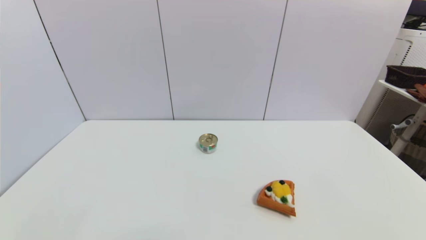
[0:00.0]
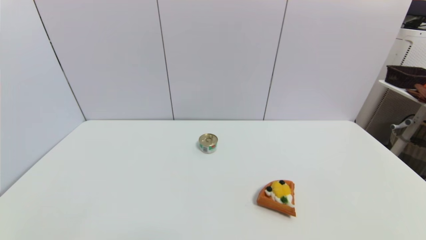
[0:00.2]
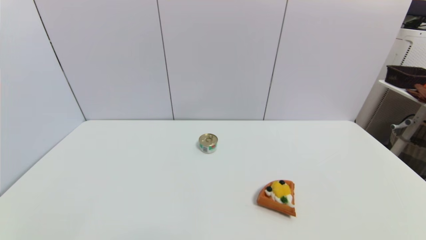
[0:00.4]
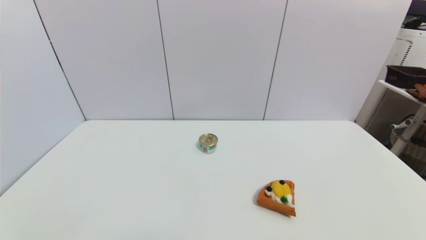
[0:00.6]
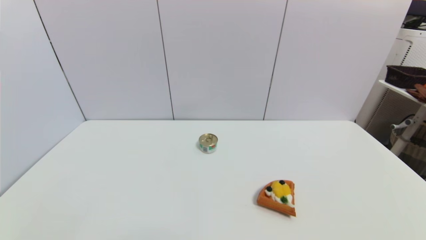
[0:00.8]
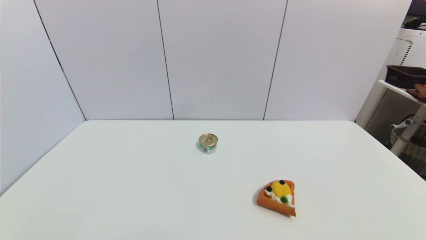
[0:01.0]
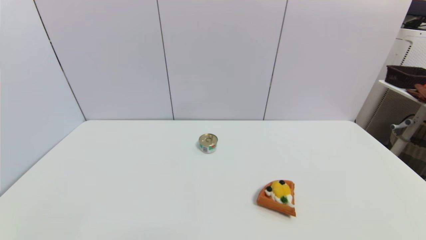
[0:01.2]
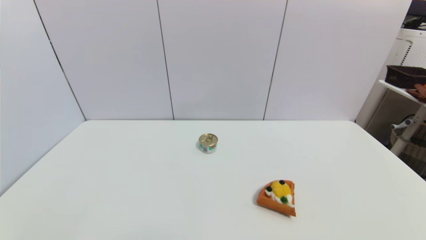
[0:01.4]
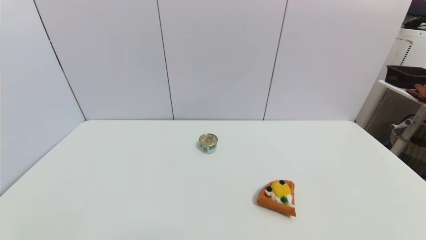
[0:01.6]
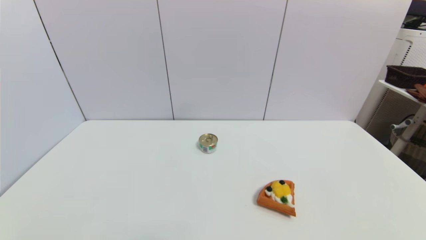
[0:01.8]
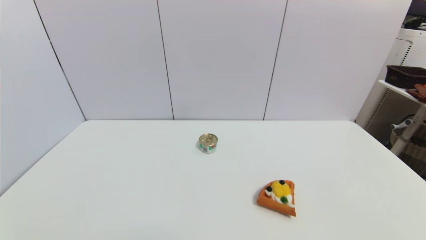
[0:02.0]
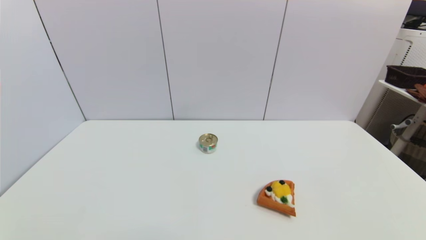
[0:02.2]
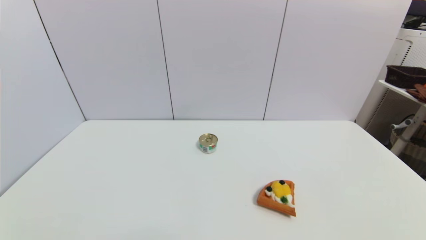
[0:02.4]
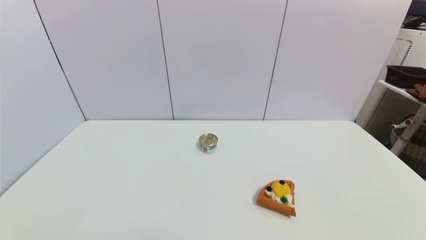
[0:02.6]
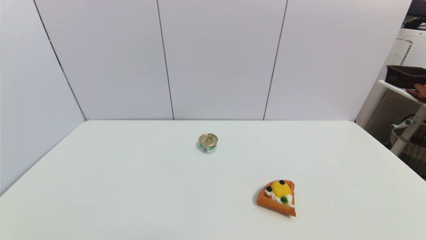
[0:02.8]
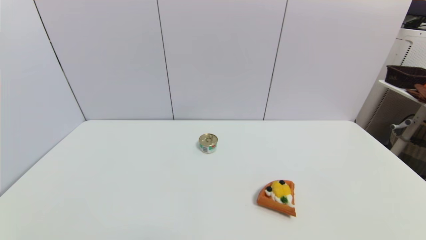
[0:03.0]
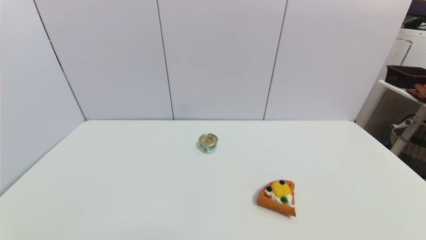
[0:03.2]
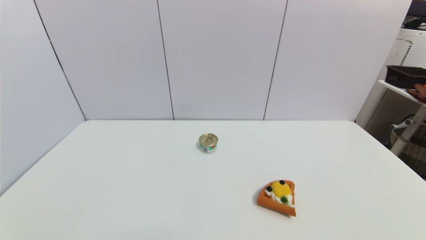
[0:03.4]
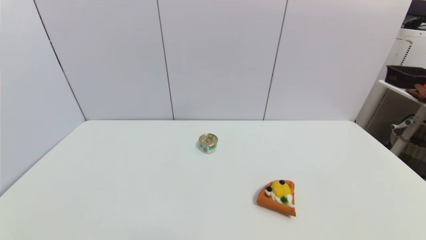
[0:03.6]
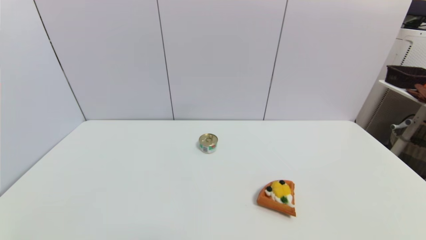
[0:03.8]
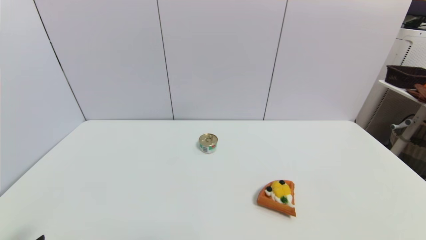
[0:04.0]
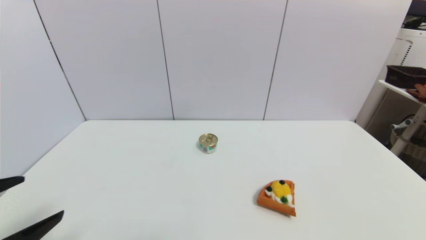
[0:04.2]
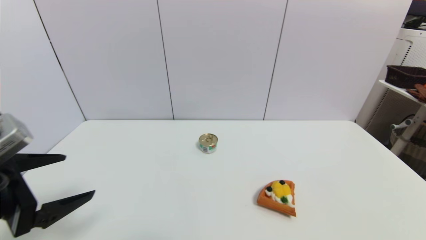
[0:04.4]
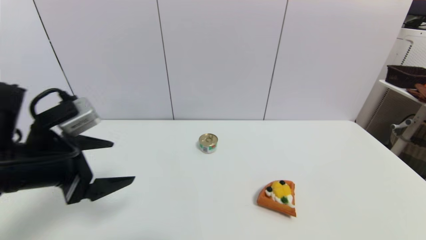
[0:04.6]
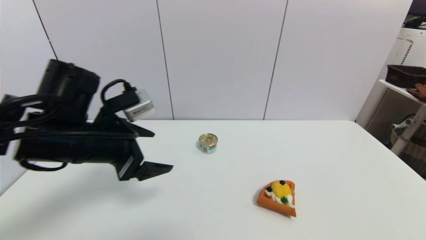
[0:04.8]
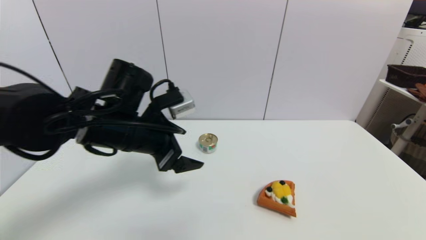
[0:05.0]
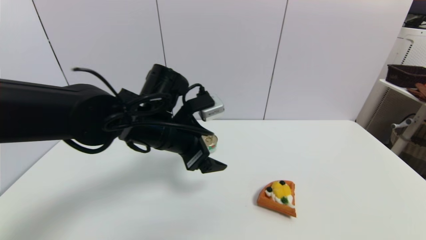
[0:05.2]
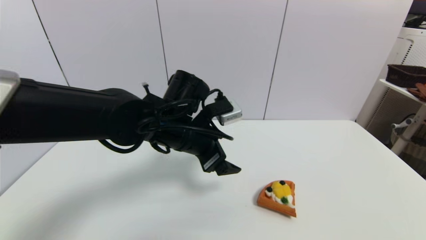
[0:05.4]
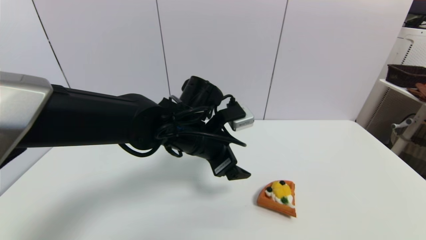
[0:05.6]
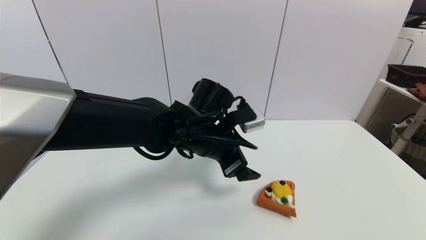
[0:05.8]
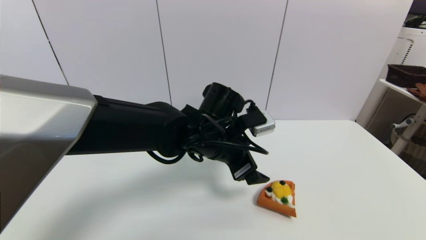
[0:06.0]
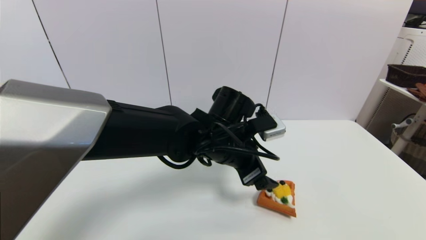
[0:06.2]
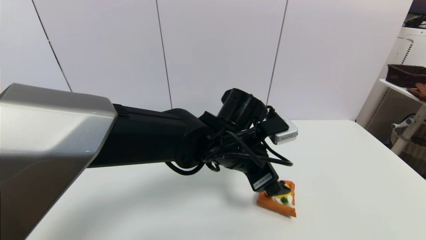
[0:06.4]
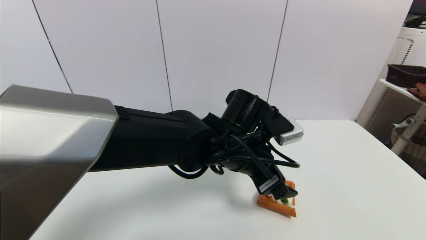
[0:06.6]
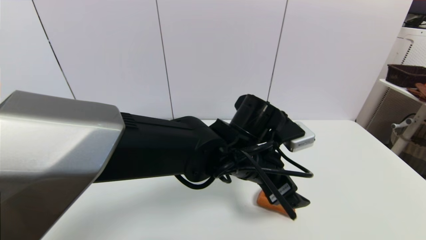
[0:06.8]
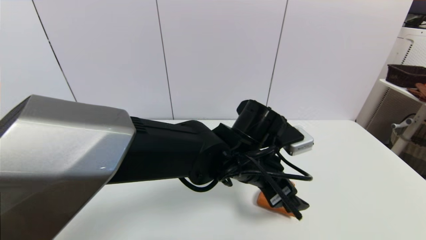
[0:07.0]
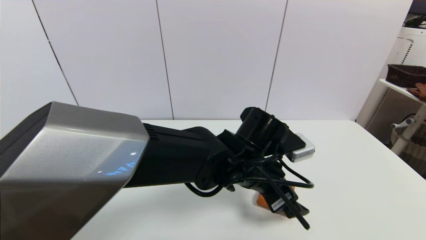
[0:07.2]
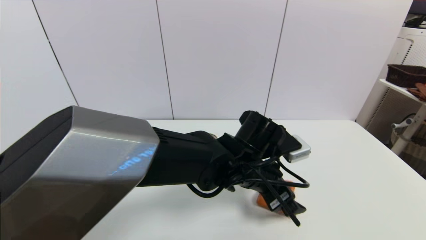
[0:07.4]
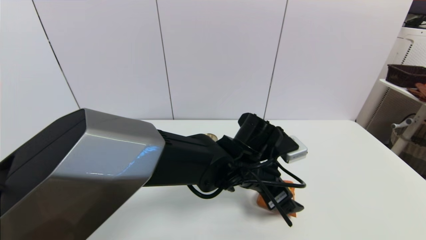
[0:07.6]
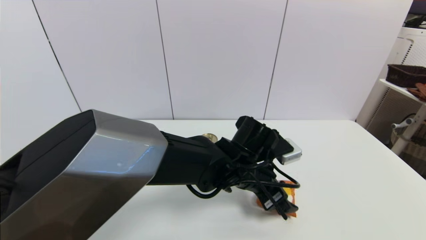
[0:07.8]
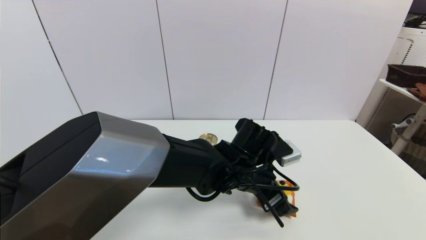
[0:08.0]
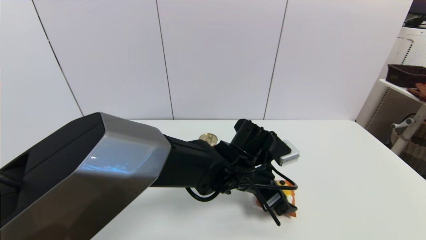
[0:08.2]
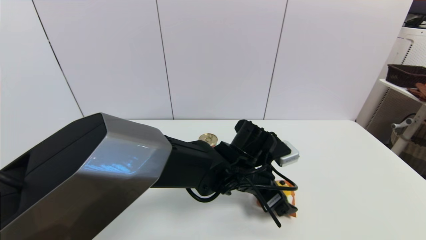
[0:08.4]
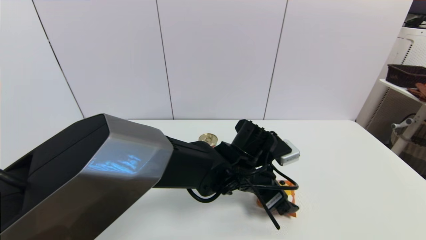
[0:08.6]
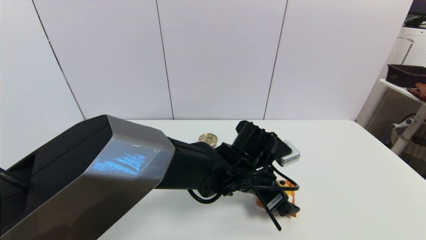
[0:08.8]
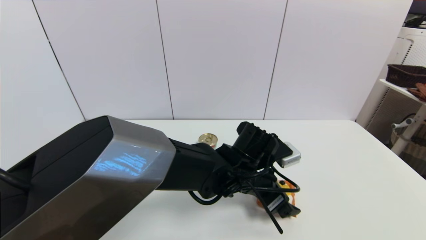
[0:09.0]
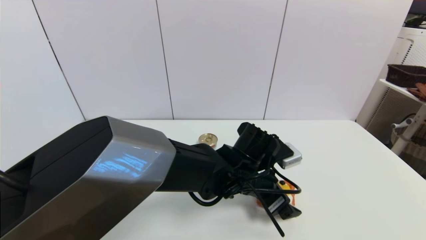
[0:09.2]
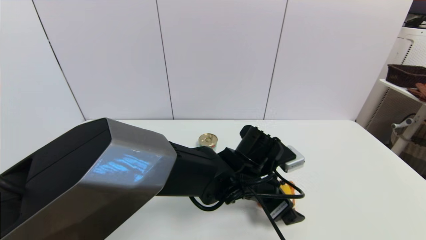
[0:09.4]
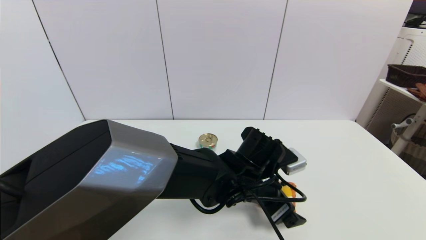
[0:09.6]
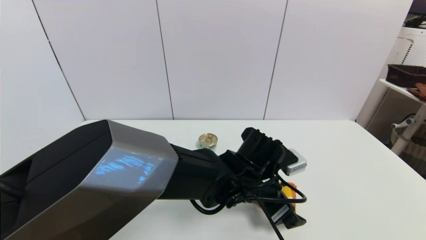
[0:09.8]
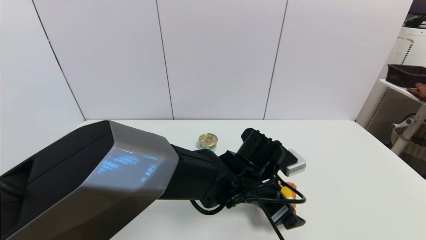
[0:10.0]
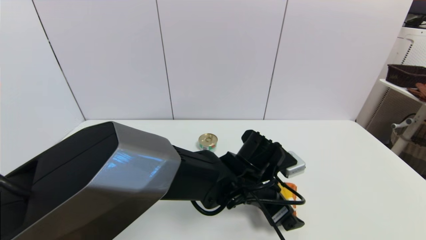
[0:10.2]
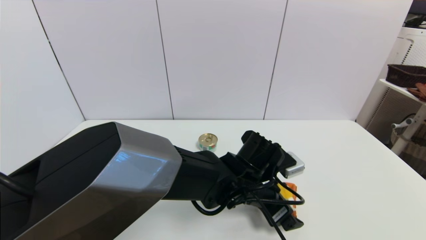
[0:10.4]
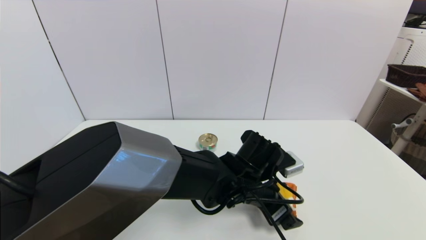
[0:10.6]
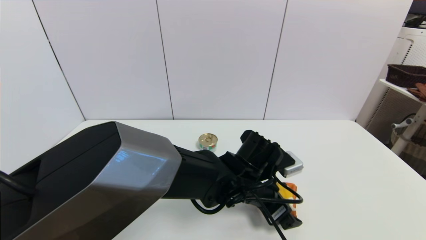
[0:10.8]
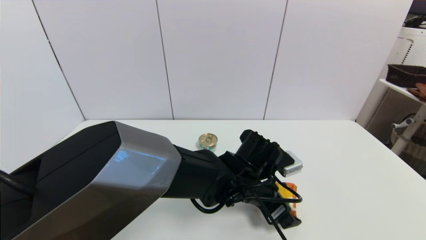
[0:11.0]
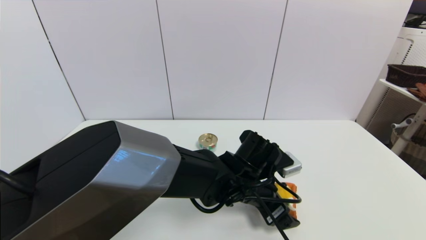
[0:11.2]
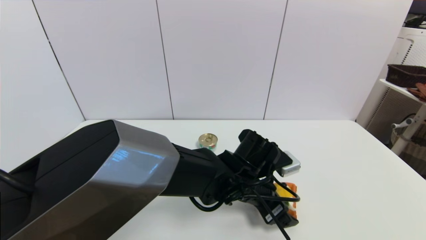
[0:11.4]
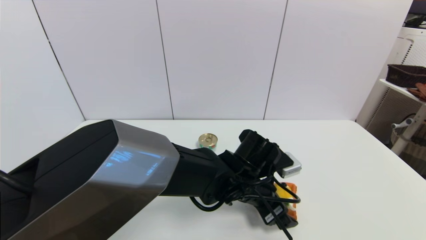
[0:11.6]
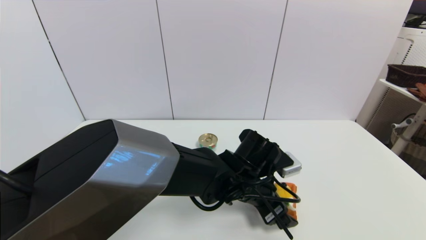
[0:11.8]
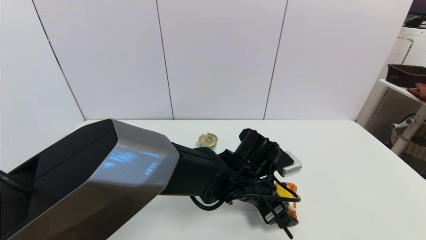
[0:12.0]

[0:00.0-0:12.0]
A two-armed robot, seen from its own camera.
0:00.0 to 0:03.0: Neither gripper changes place.
0:03.0 to 0:04.4: The left gripper travels upward and forward by some 20 cm.
0:04.4 to 0:06.0: The left gripper goes approximately 30 cm to the right and forward.
0:06.0 to 0:07.6: The left gripper goes about 5 cm to the right.
0:07.6 to 0:10.4: The grippers stay close to where they were, moving slightly.
0:10.4 to 0:12.0: Both grippers stay about where they are.

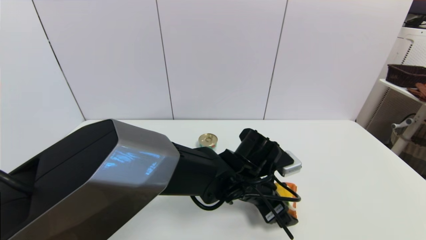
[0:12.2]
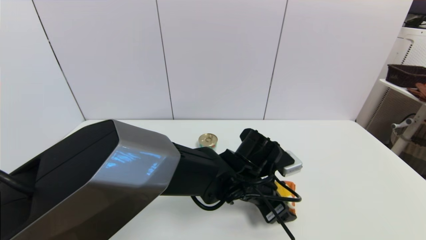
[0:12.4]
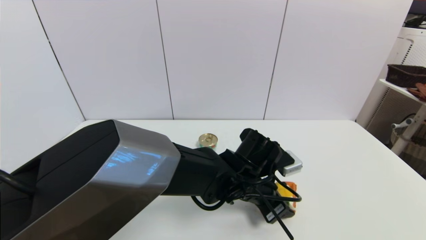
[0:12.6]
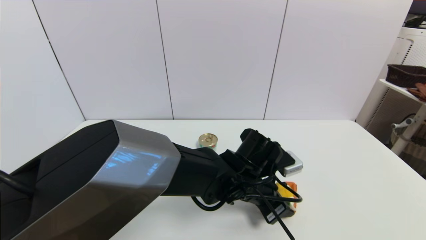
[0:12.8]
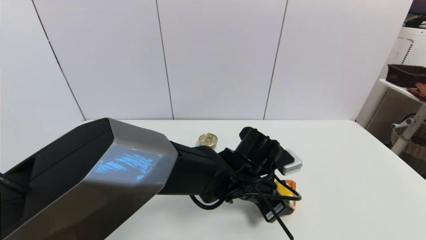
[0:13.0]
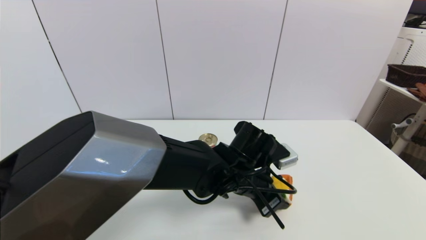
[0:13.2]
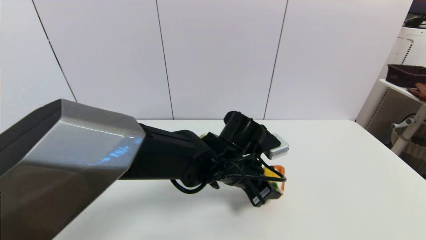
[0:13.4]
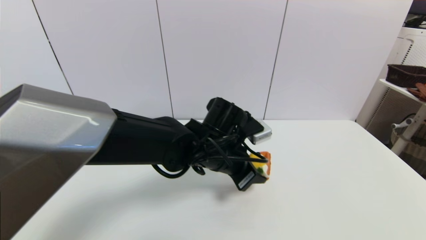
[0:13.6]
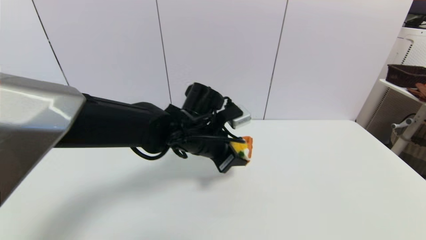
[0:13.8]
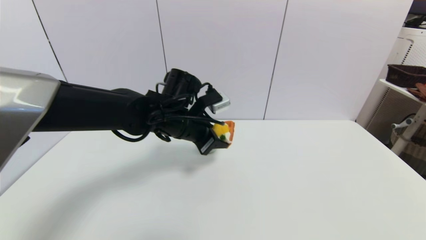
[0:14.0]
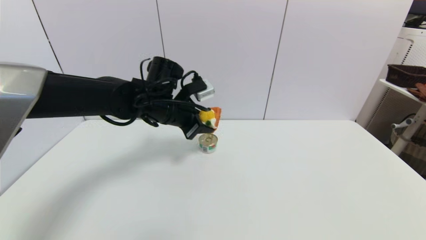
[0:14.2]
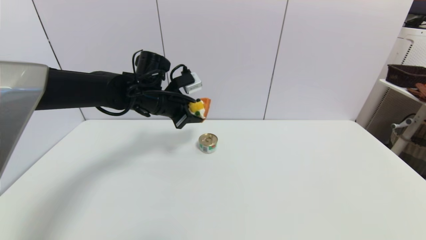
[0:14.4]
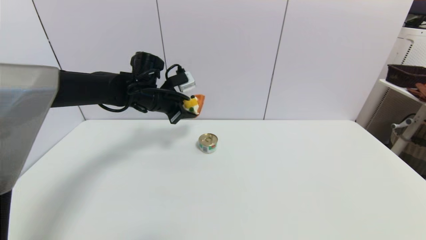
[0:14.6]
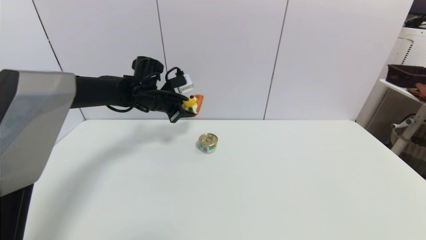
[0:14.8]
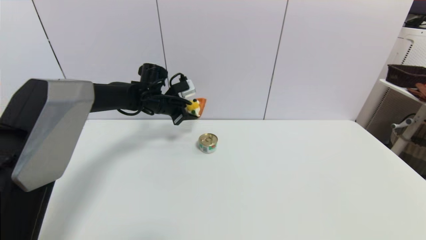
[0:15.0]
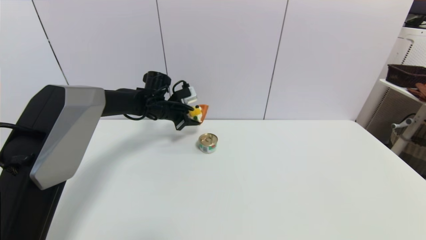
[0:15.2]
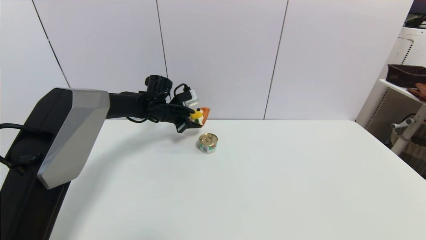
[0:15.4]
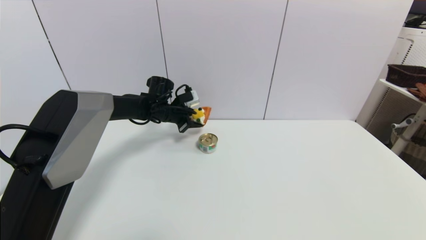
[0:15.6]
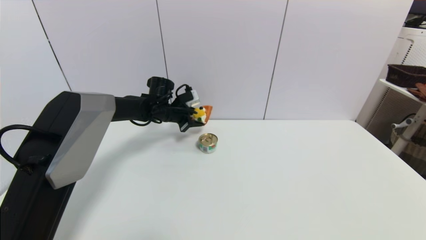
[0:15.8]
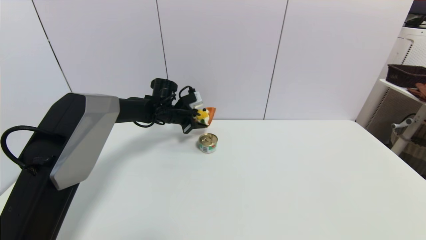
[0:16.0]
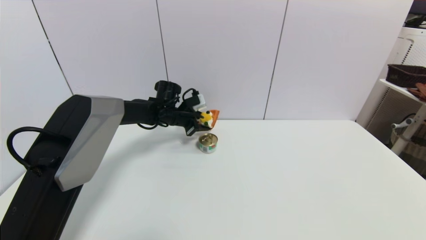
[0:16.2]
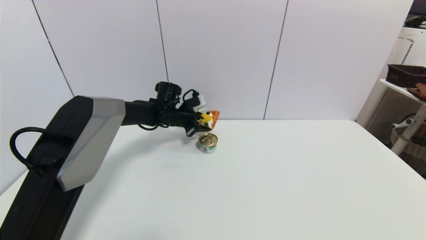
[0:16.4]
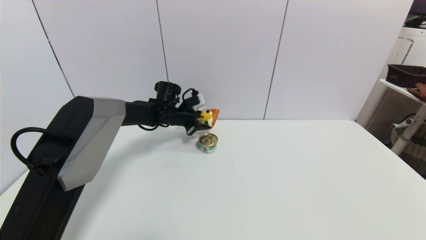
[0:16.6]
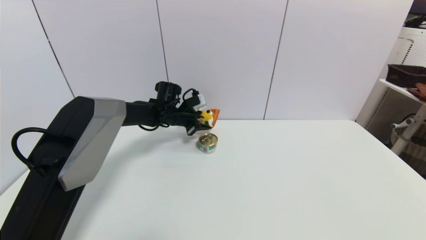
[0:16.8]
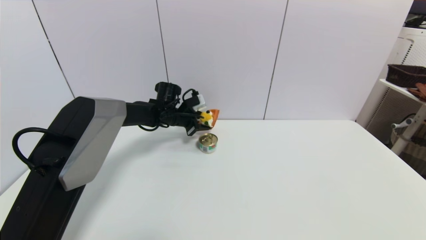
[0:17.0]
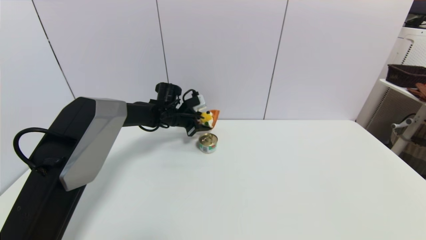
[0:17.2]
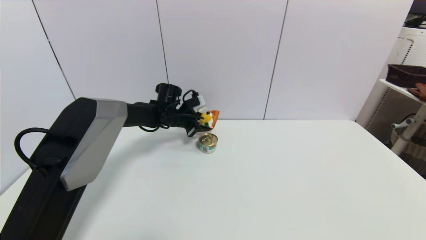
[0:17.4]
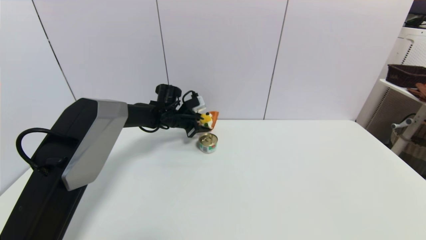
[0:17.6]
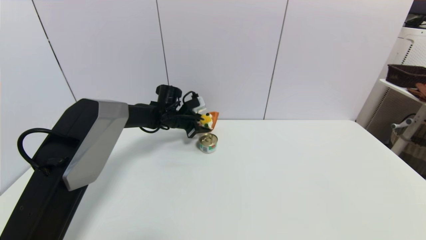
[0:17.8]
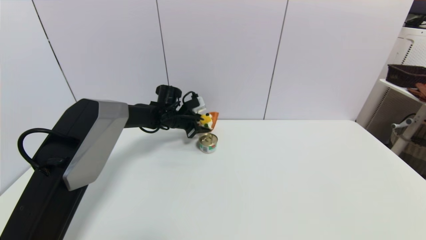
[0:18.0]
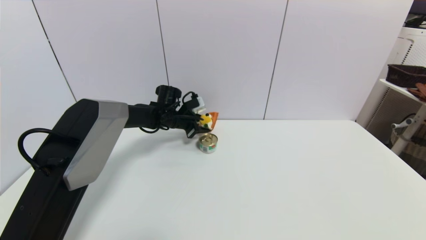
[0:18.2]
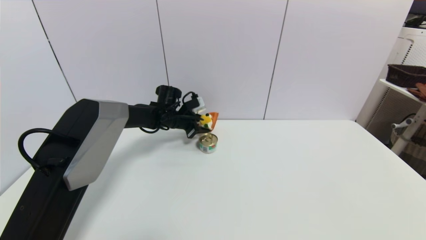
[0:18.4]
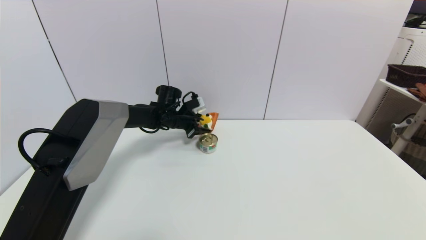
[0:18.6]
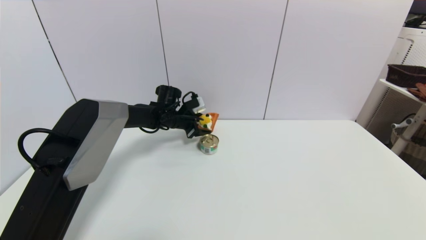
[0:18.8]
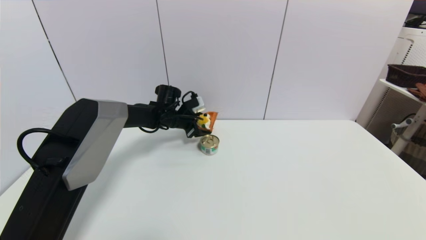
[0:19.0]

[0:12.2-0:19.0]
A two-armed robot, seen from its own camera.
0:12.2 to 0:13.6: The left gripper shifts approximately 10 cm to the left and upward, and closes up.
0:13.6 to 0:15.0: The left gripper shifts about 25 cm forward and to the left.
0:15.0 to 0:16.2: The left gripper moves some 5 cm.
0:16.2 to 0:17.6: Both grippers stay put.
0:17.6 to 0:19.0: The left gripper opens up.
